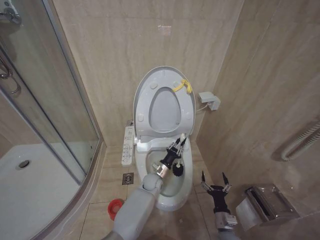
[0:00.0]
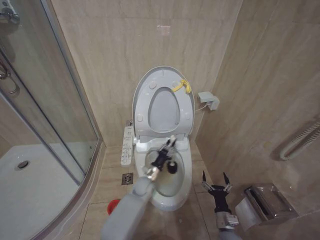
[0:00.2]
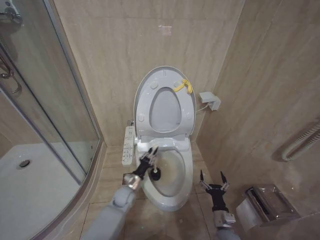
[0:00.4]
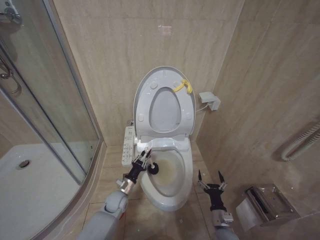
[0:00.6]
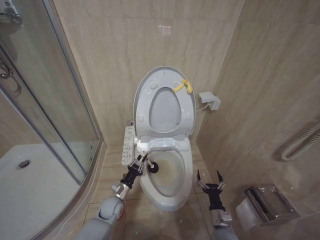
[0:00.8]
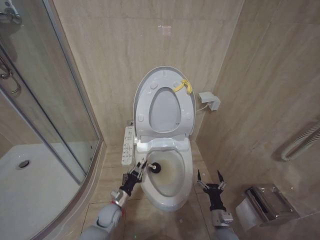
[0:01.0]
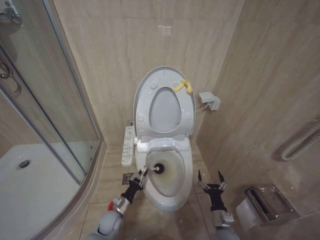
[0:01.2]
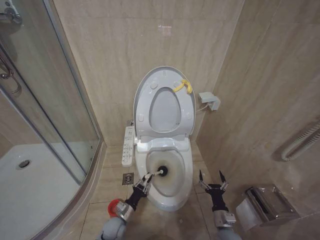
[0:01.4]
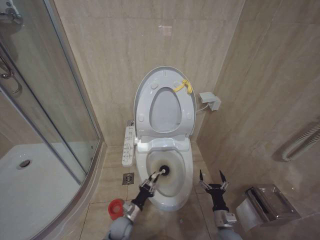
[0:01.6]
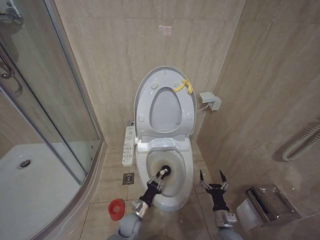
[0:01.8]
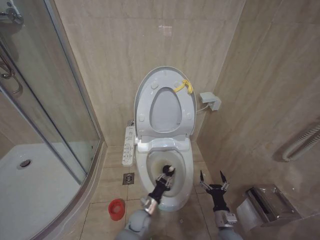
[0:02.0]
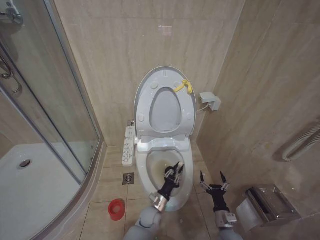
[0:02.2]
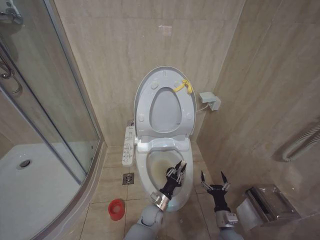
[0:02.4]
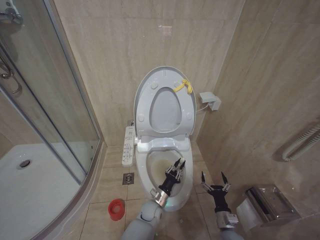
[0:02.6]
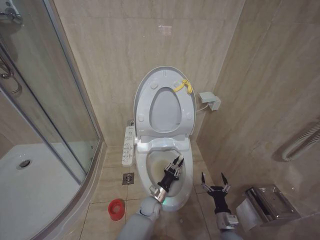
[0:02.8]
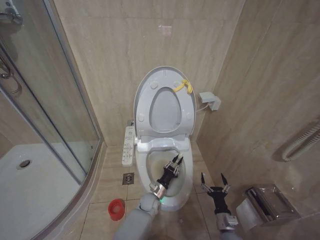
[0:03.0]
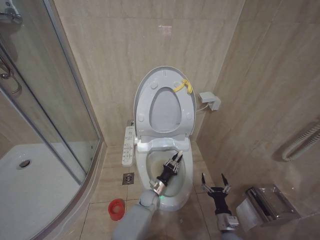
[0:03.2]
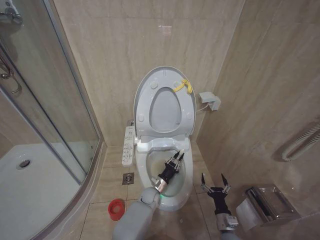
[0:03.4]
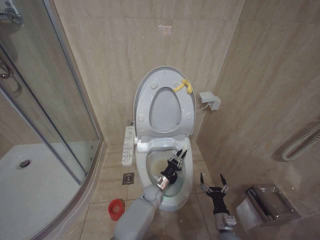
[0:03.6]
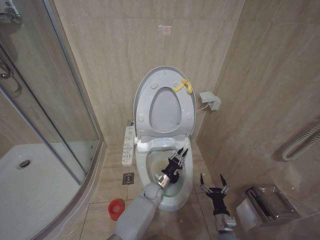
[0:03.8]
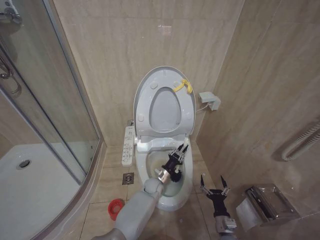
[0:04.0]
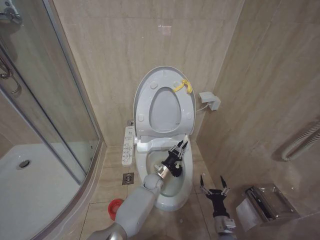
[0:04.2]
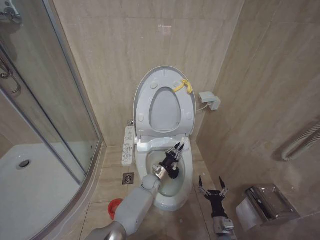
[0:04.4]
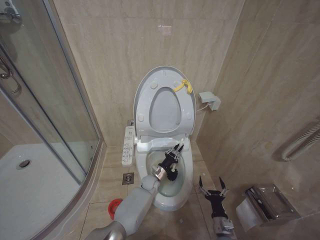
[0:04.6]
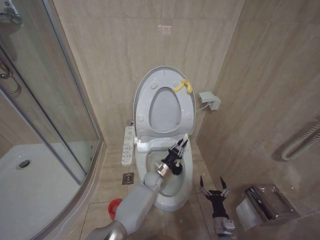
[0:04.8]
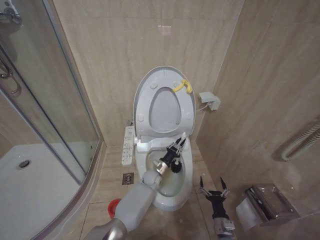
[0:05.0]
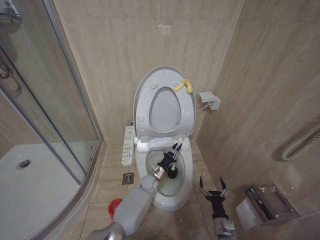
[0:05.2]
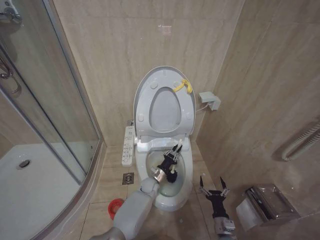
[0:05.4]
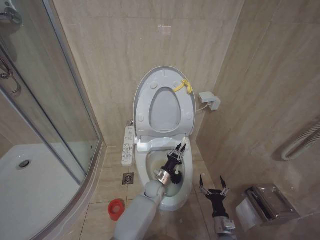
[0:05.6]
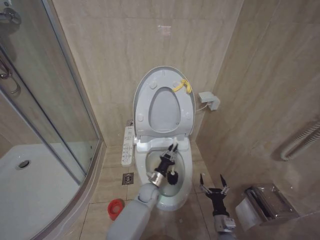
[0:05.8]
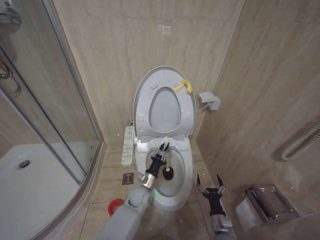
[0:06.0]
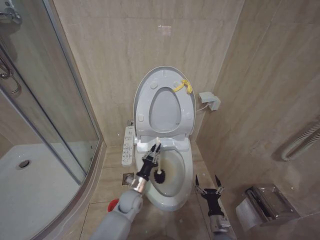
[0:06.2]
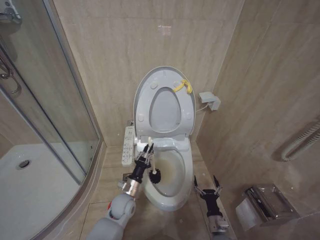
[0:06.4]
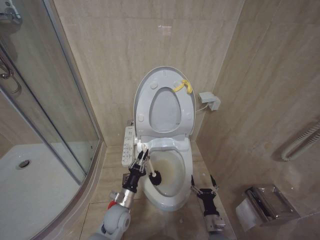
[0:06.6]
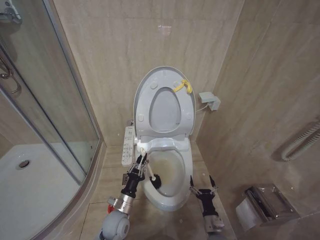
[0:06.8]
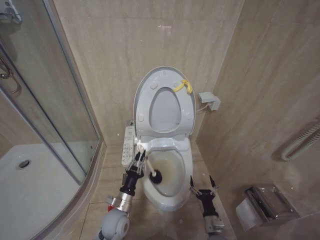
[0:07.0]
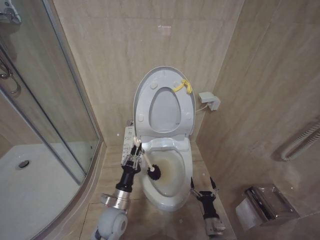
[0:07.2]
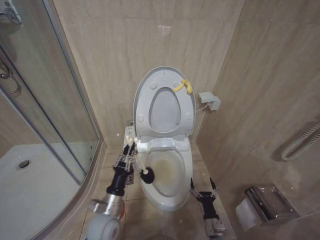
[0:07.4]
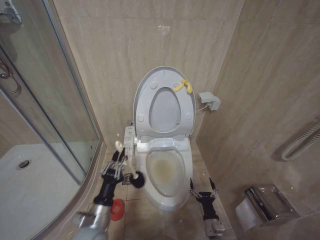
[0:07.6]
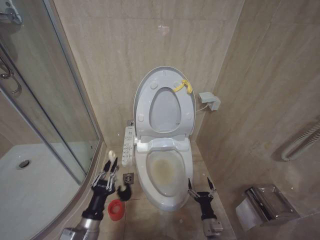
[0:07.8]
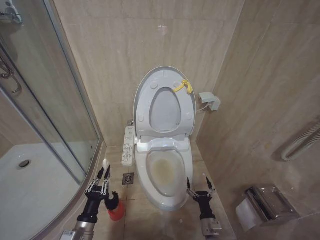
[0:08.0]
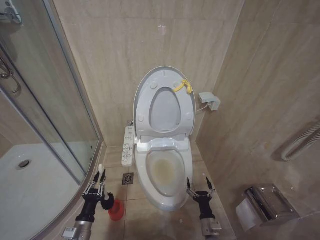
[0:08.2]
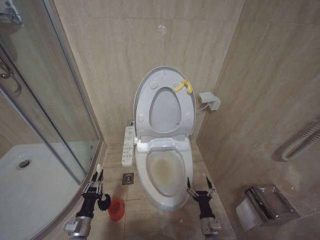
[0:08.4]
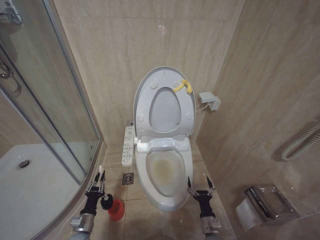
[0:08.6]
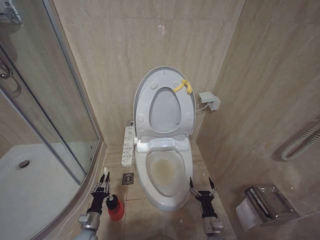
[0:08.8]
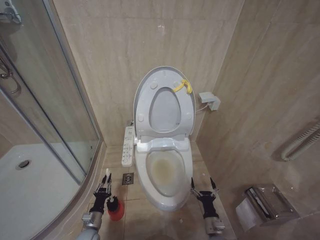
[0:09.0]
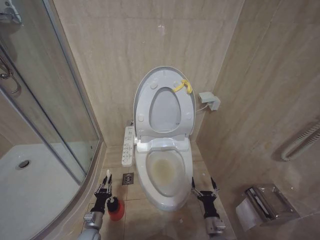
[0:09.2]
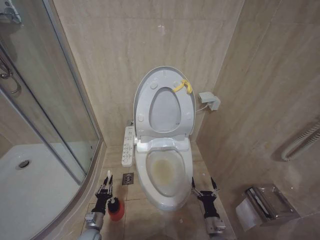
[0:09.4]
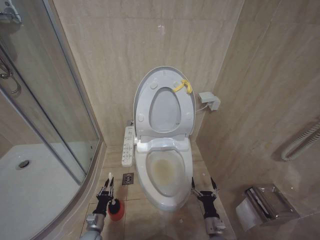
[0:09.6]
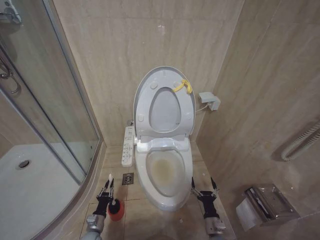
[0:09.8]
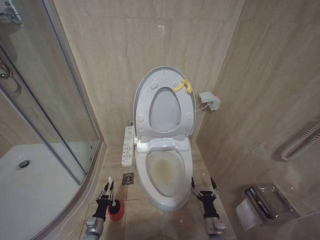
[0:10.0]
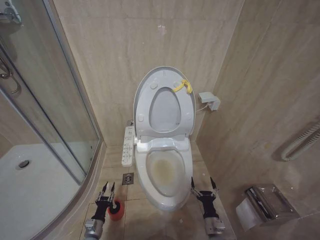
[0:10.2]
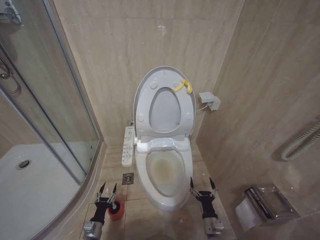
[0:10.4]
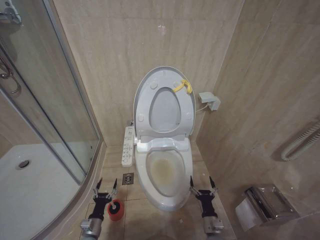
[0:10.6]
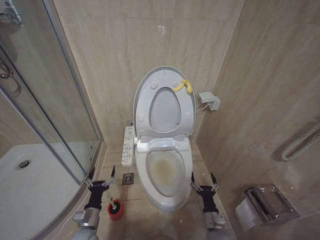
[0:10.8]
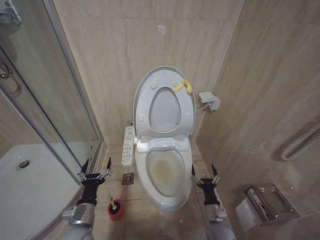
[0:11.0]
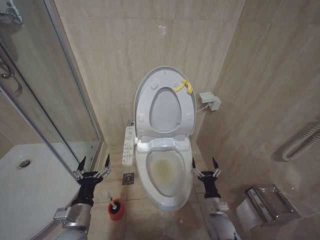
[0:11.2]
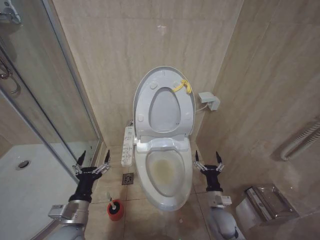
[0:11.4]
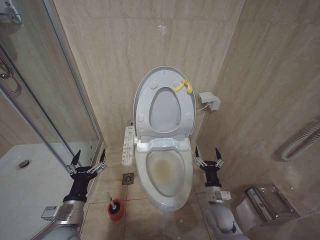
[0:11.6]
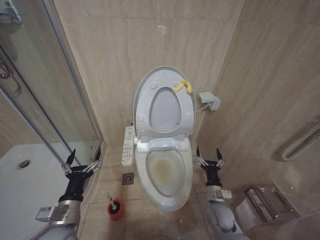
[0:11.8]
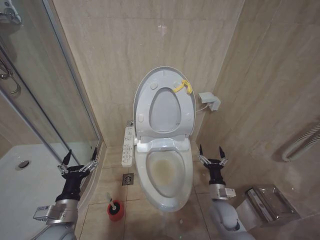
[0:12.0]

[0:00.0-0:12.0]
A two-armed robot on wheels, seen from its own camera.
Task of the whole recording: Open the toilet lid, clean the toilet bowl with a toilet brush, close the toilet lid, and flush.
0:00.0 to 0:01.6: The left gripper is displaced backward, to the left and downward by approximately 25 cm.
0:01.6 to 0:03.0: The left gripper goes about 15 cm to the right and forward.
0:03.0 to 0:04.4: The left gripper travels forward and upward by roughly 10 cm.
0:04.4 to 0:06.0: The left gripper shifts approximately 5 cm backward.
0:06.0 to 0:07.6: The left gripper moves backward, to the left and upward, roughly 25 cm.
0:07.6 to 0:09.0: The left gripper shifts roughly 20 cm downward and to the left.
0:09.0 to 0:10.4: The grippers make only small movements.
0:10.4 to 0:12.0: The left gripper is displaced upward by some 30 cm, and opens its fingers, while the right gripper goes approximately 15 cm upward and forward.

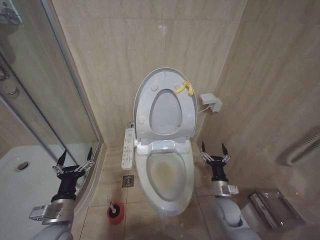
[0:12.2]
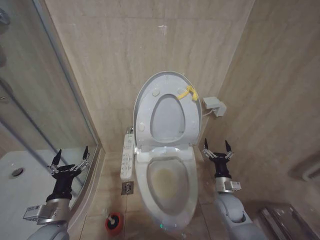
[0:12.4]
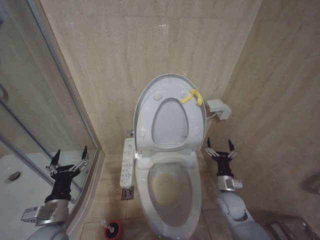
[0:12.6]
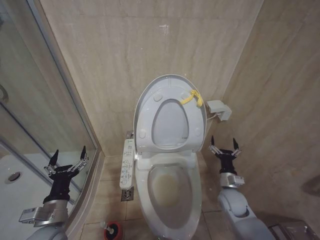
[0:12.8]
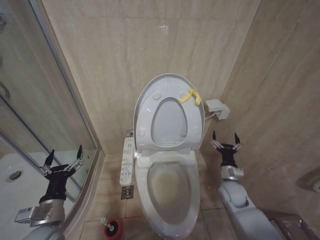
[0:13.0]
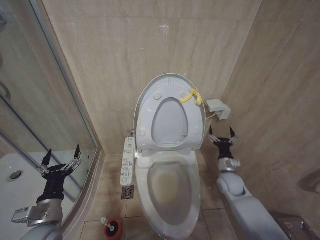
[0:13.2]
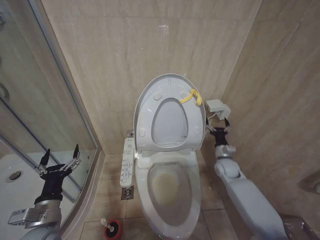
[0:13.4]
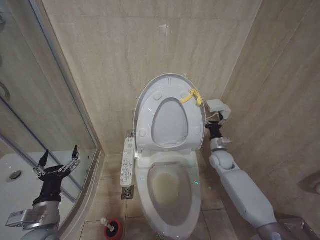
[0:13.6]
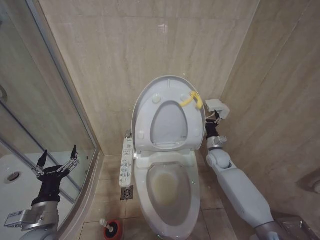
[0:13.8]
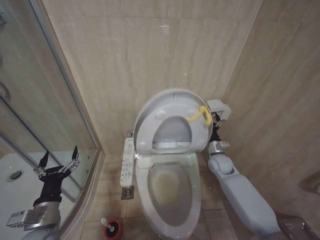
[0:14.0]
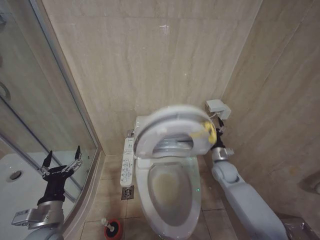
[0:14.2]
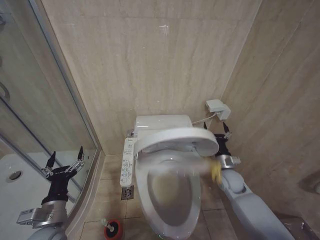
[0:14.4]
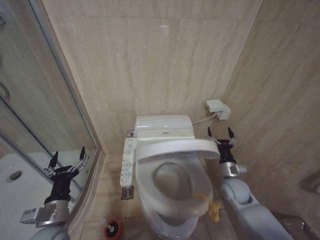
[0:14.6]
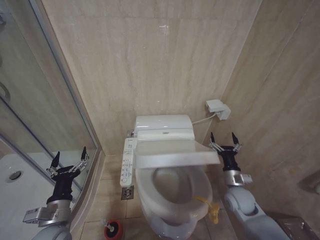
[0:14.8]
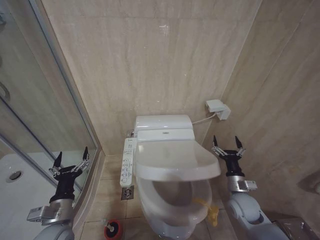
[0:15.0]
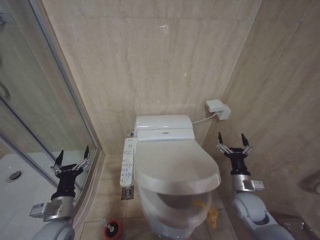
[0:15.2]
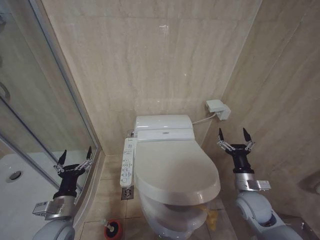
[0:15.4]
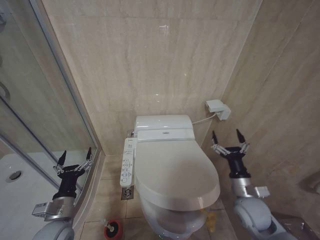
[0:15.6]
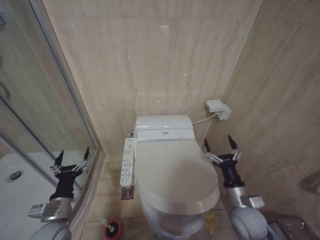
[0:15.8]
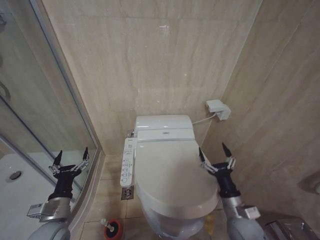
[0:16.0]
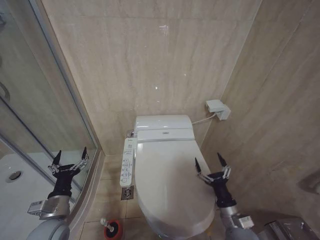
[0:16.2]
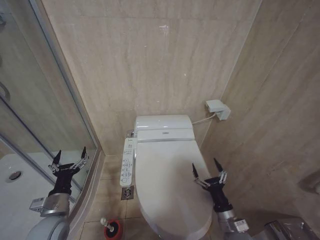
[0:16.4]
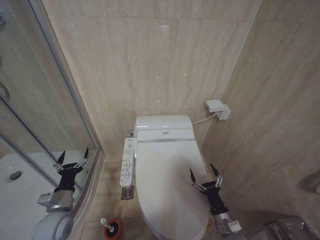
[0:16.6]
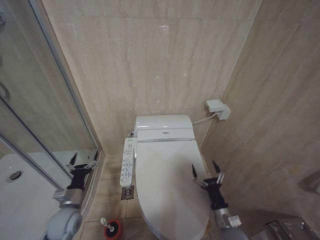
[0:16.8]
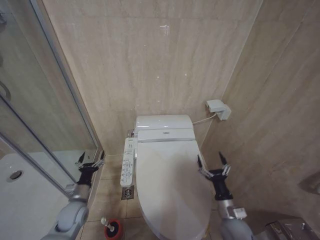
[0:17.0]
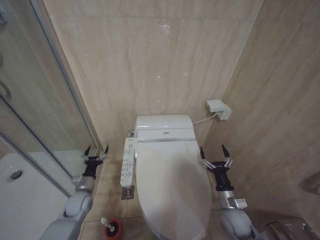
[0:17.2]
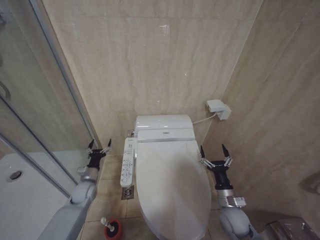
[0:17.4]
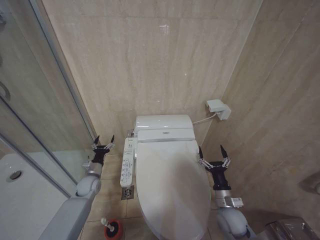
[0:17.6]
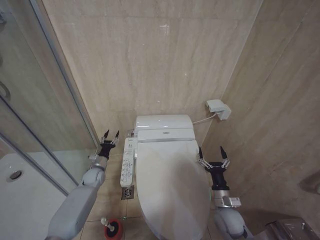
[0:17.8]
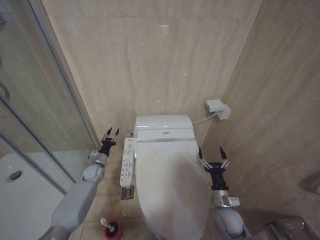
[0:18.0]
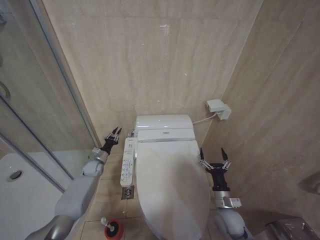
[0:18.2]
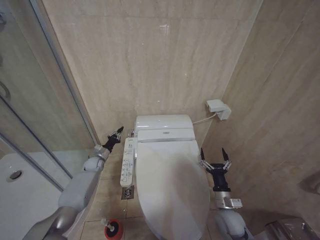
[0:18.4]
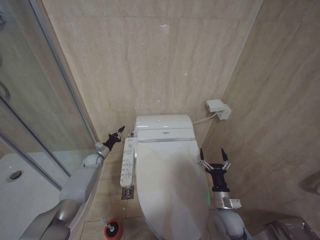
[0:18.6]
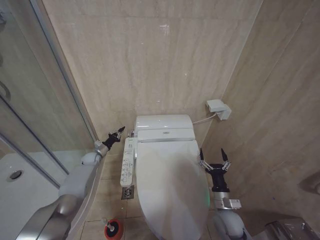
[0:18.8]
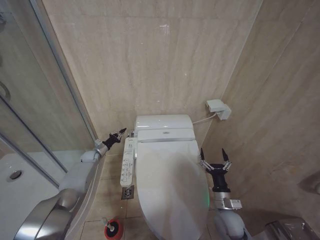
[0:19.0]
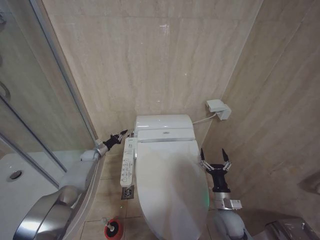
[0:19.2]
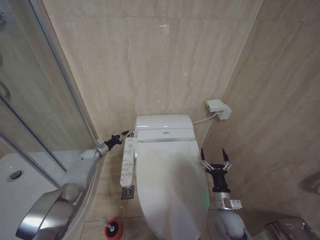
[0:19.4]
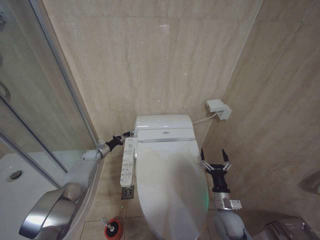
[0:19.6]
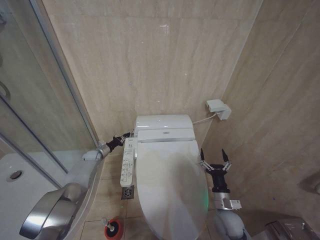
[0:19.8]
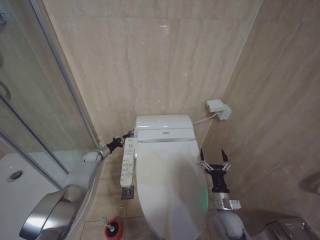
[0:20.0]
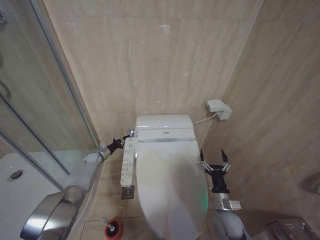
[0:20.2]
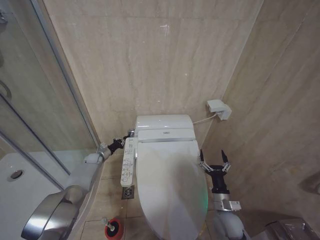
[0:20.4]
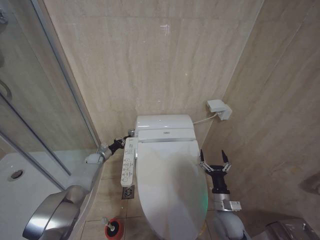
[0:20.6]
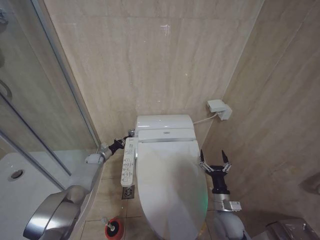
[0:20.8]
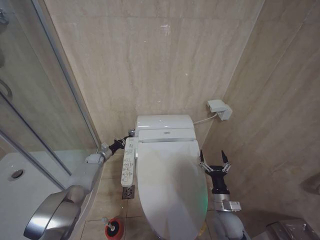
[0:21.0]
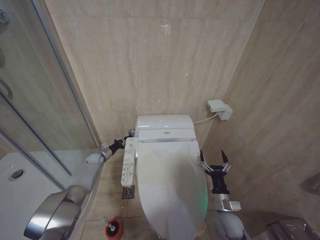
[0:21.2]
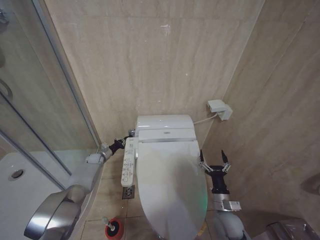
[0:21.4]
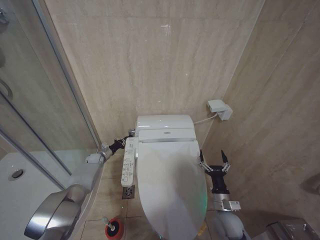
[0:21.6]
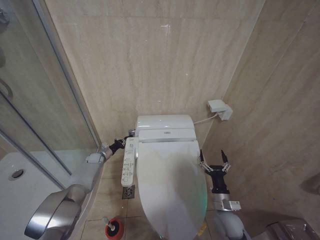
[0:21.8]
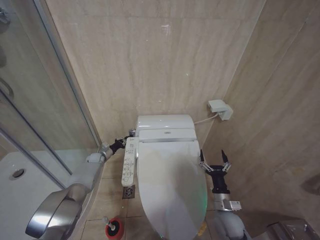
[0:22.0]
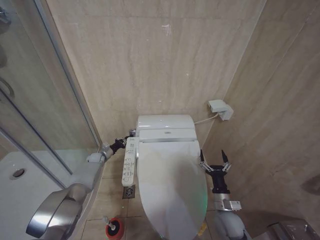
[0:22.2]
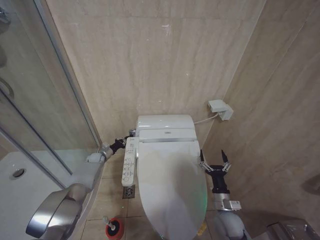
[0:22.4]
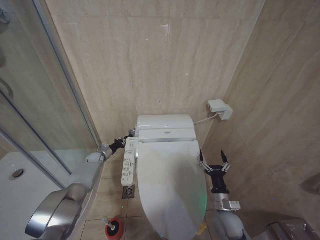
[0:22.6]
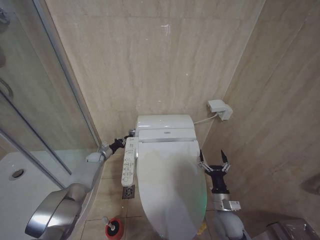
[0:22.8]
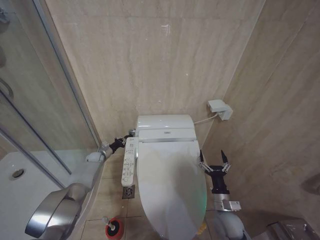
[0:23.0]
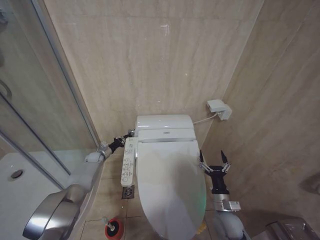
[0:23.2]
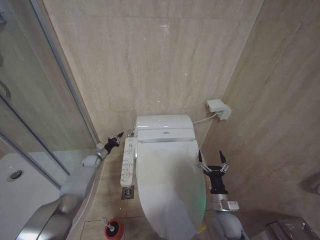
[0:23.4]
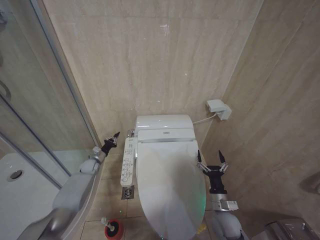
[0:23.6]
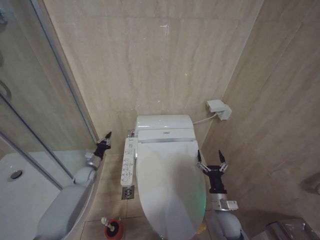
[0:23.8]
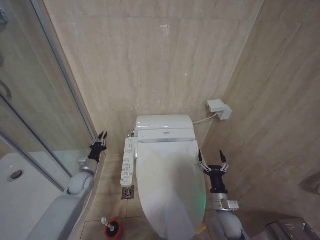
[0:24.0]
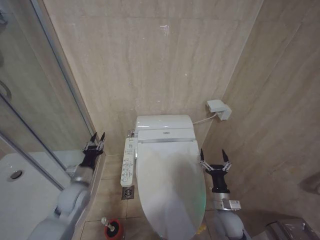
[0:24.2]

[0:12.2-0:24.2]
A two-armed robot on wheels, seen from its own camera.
Task of the whole recording: Open the toilet lid, clean the toilet bowl with a toilet brush, close the toilet lid, and flush.
0:12.2 to 0:13.8: The right gripper heads forward and upward, covering about 20 cm.
0:13.8 to 0:15.2: The right gripper goes about 20 cm backward.
0:15.2 to 0:16.6: The right gripper heads downward, backward and to the left, covering about 15 cm, while the left gripper moves approximately 5 cm.
0:16.6 to 0:18.2: The left gripper goes roughly 25 cm forward, and closes its fingers. The right gripper is displaced forward by approximately 5 cm.
0:18.2 to 0:19.8: The left gripper heads forward, covering approximately 10 cm, and closes up.
0:19.8 to 0:21.2: There are only small adjustments of the grippers.
0:21.2 to 0:22.6: Neither gripper changes place.
0:22.6 to 0:24.2: The left gripper moves backward and upward, some 25 cm.
